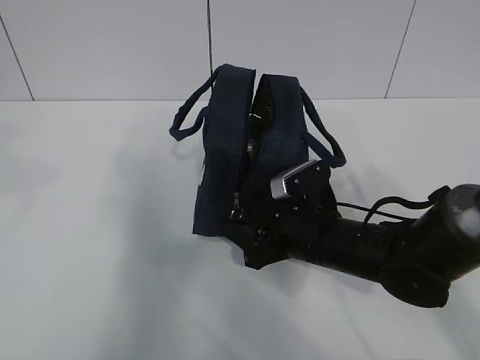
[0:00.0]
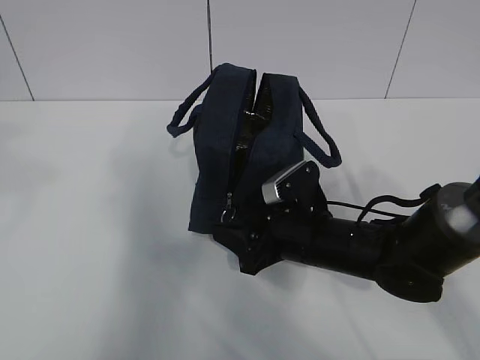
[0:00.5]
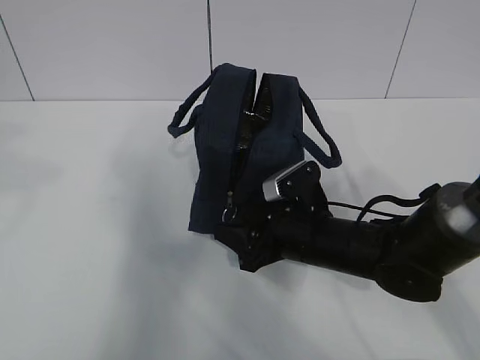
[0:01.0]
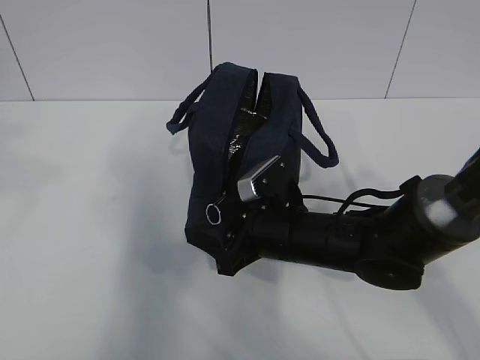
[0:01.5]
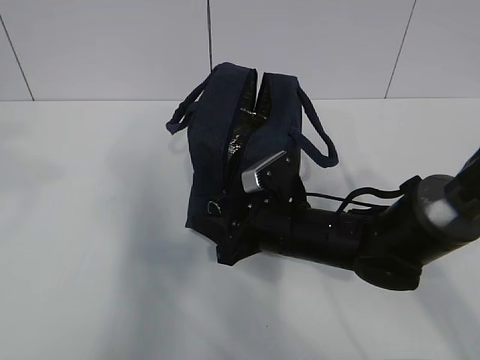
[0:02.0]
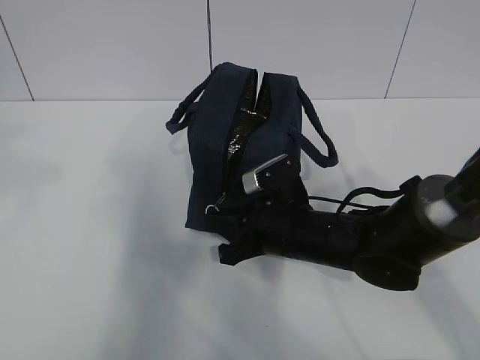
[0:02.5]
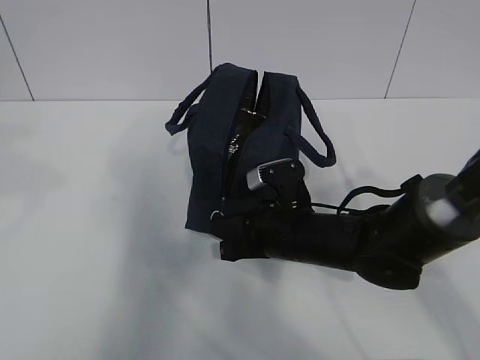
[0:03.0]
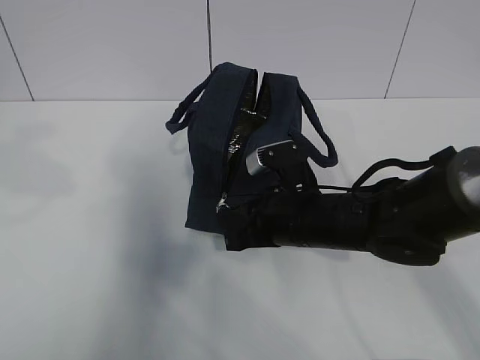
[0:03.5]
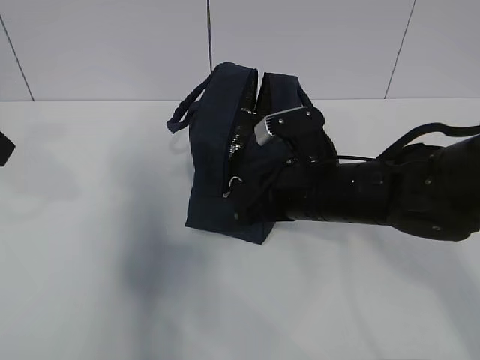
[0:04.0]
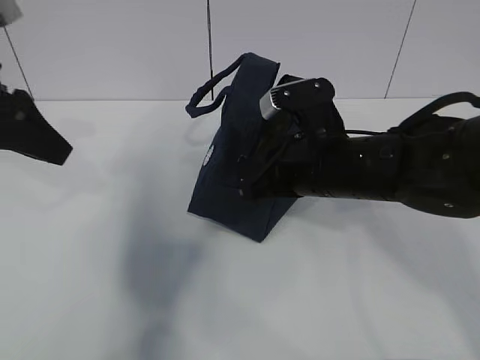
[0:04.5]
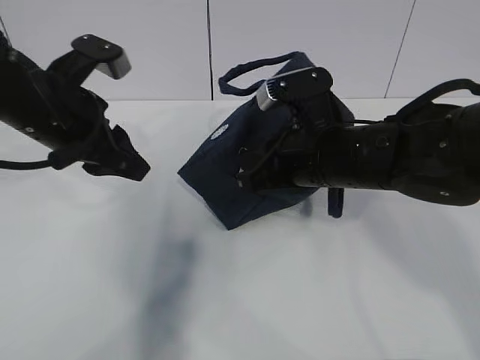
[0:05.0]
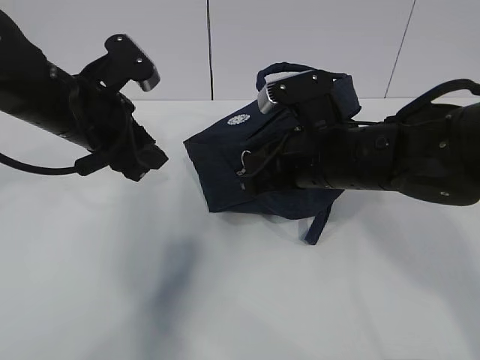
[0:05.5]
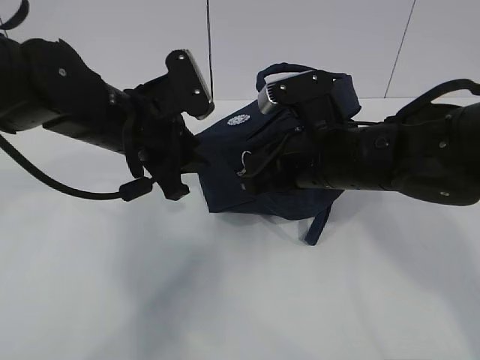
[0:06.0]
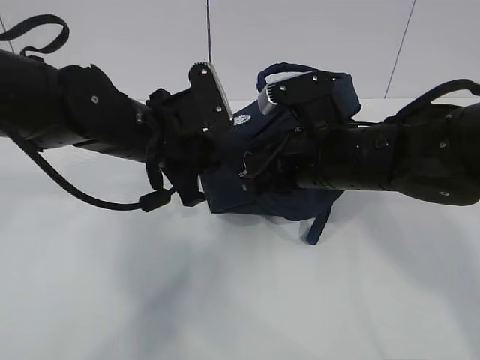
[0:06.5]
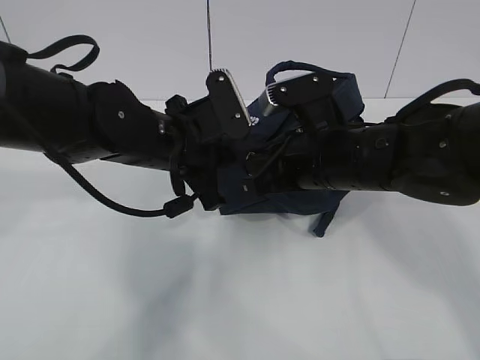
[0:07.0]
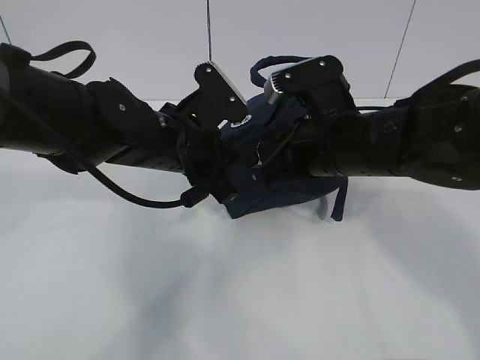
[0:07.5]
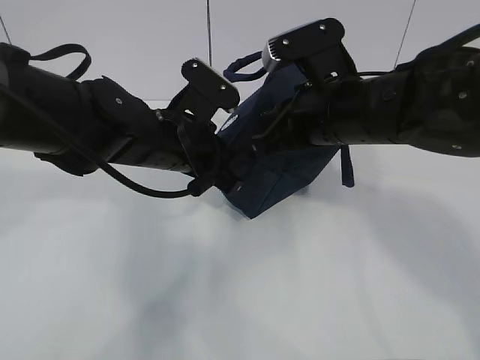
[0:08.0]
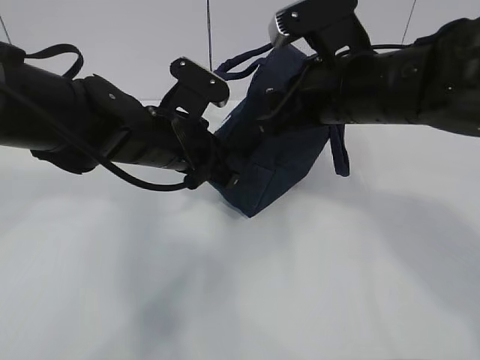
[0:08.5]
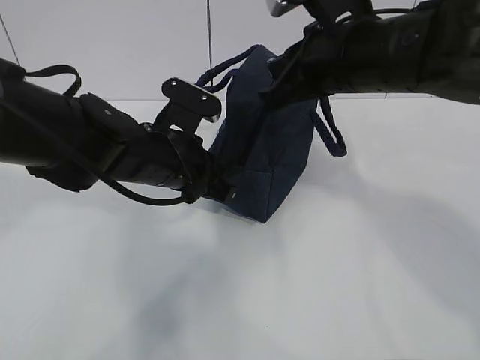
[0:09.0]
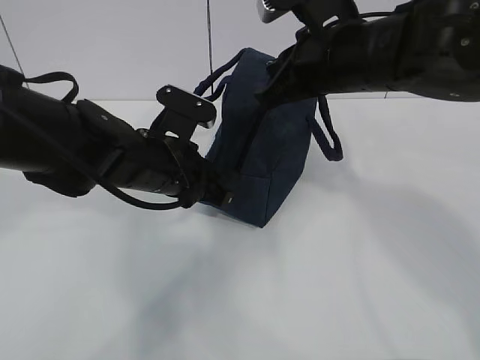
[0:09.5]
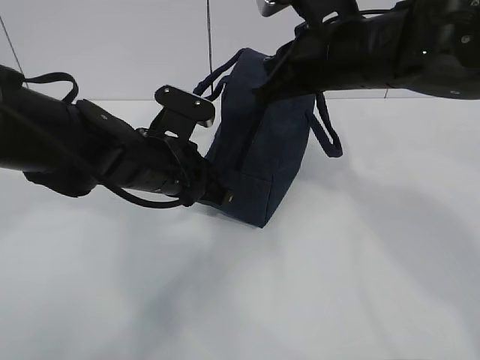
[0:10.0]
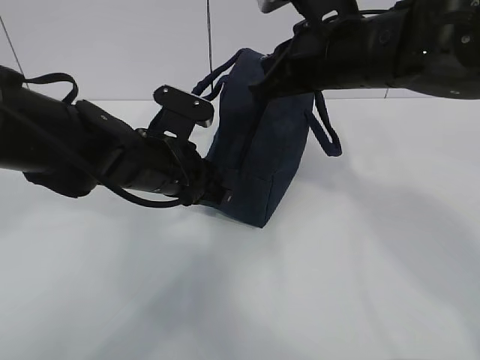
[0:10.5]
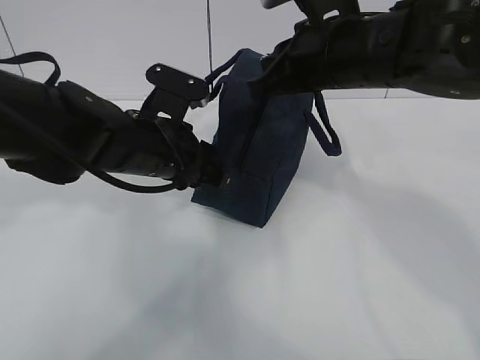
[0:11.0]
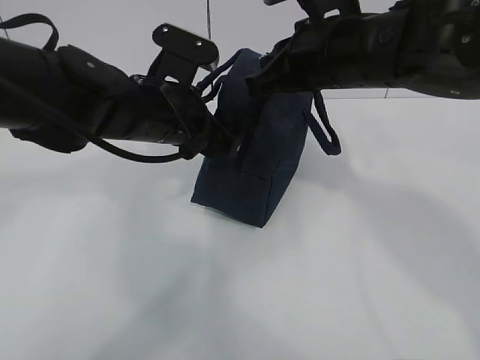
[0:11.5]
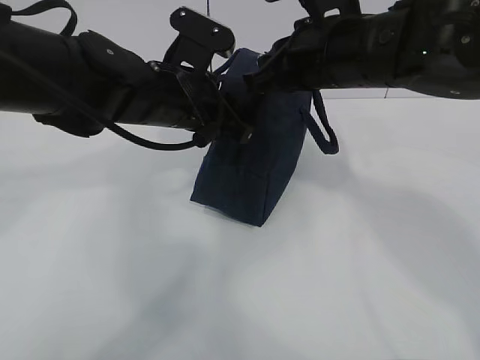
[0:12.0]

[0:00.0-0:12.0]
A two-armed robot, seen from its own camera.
Step, 0:02.5 to 0:07.0: Pull the zipper with your right hand.
Step, 0:07.5 to 0:10.5: Grab the lunch bag with your left hand.
0:00.0 to 0:02.0: The grippers stay close to where they were, moving slightly.
0:02.0 to 0:04.0: The left gripper travels forward and downward by about 10 cm, while the right gripper is displaced upward by approximately 5 cm, and closes up.
0:04.0 to 0:06.0: The left gripper shifts some 20 cm to the right, downward and forward.
0:06.0 to 0:08.0: The left gripper closes up.
0:08.0 to 0:10.0: The right gripper shifts by approximately 5 cm.
0:10.0 to 0:12.0: The left gripper travels upward by about 5 cm, and opens its fingers.

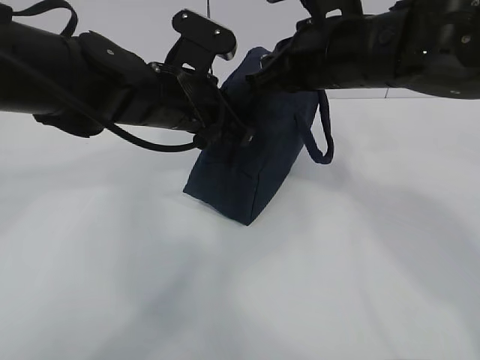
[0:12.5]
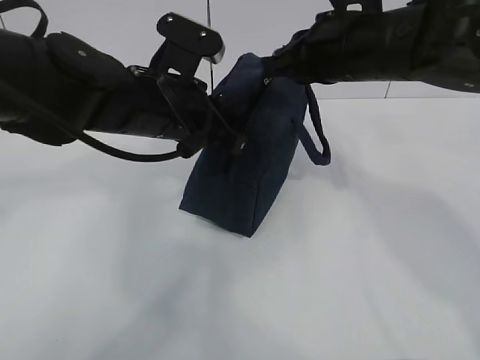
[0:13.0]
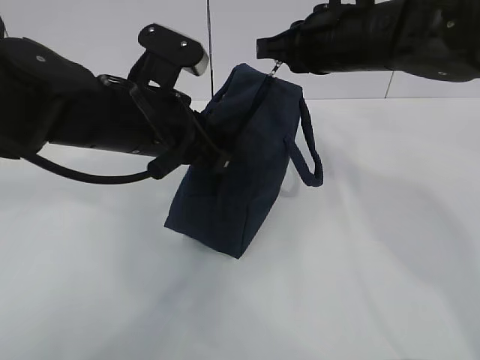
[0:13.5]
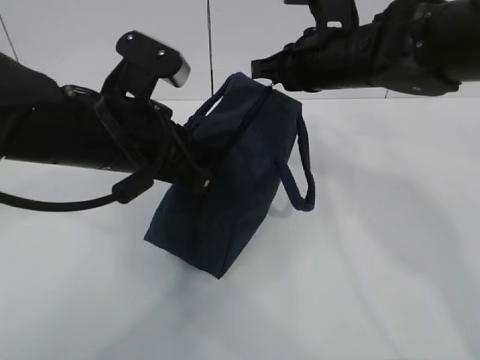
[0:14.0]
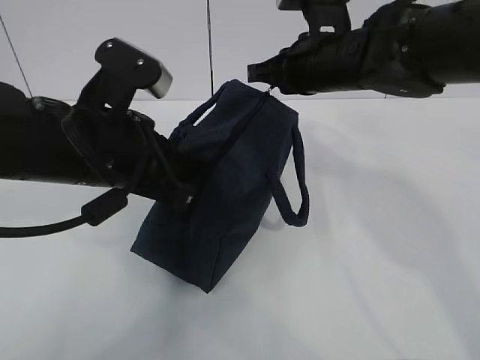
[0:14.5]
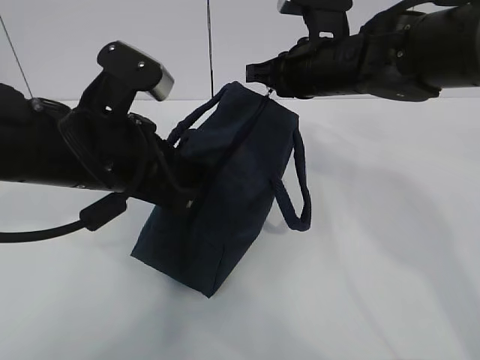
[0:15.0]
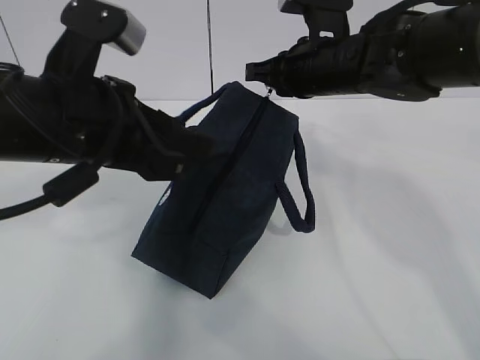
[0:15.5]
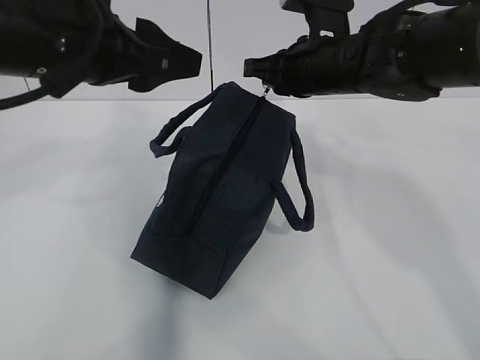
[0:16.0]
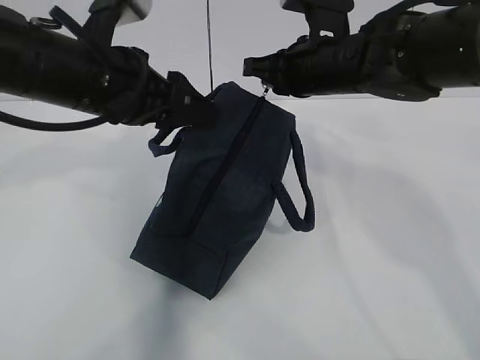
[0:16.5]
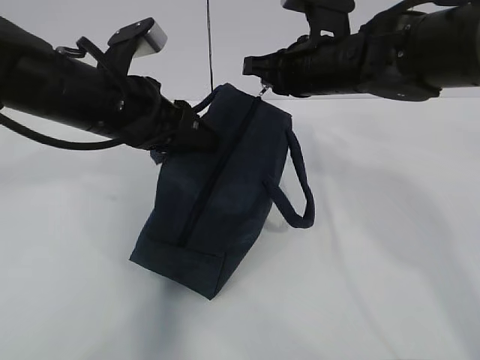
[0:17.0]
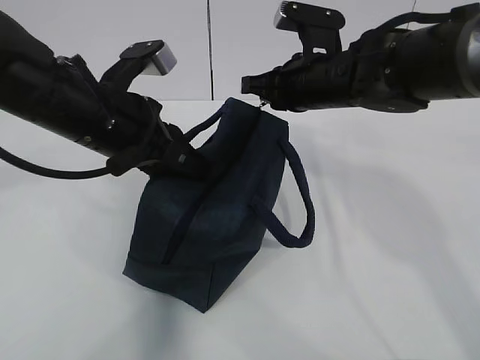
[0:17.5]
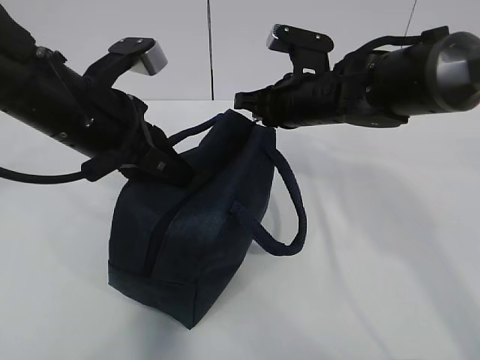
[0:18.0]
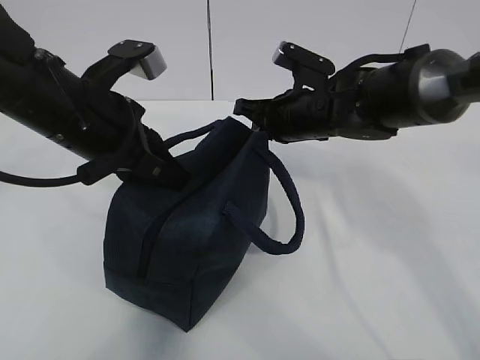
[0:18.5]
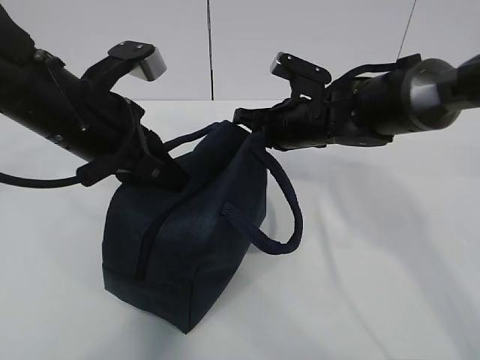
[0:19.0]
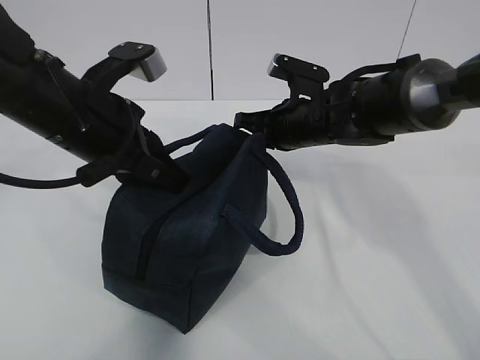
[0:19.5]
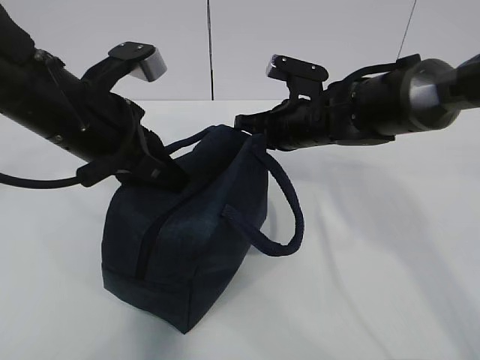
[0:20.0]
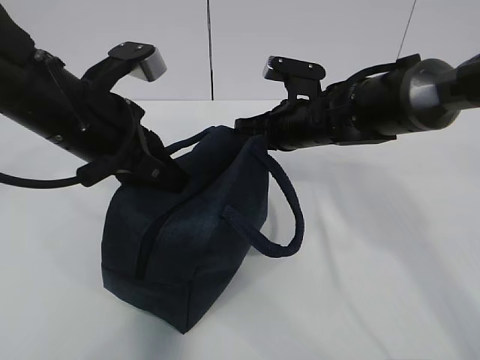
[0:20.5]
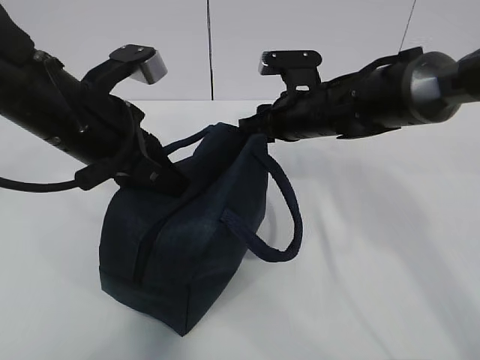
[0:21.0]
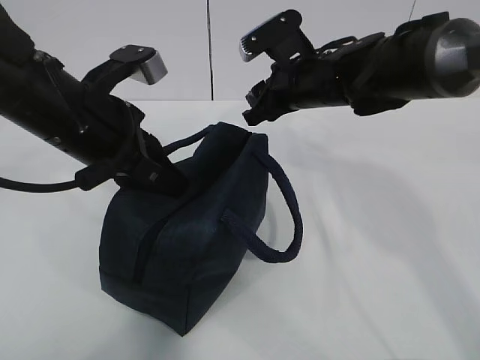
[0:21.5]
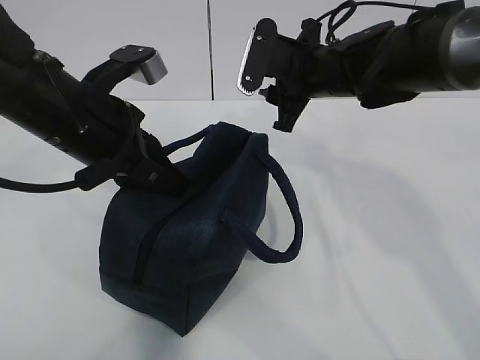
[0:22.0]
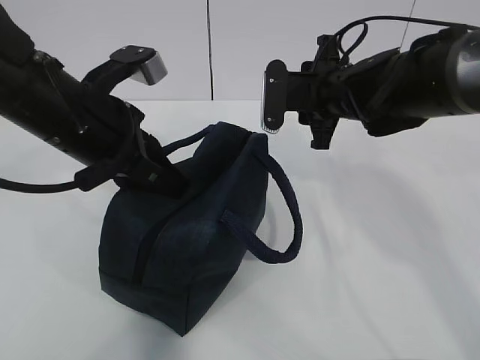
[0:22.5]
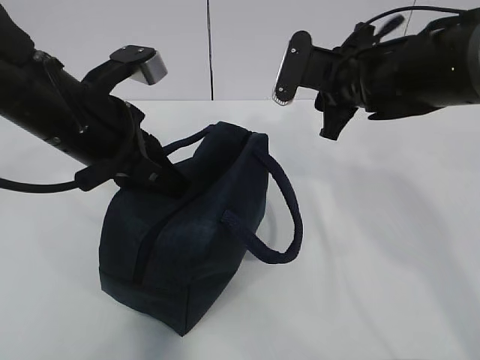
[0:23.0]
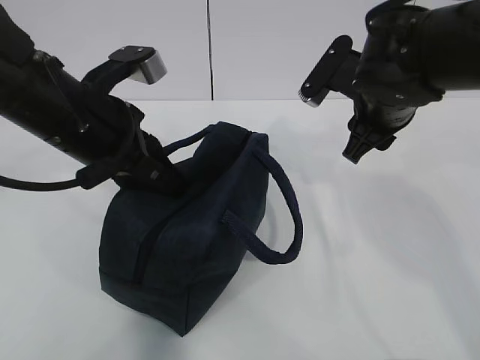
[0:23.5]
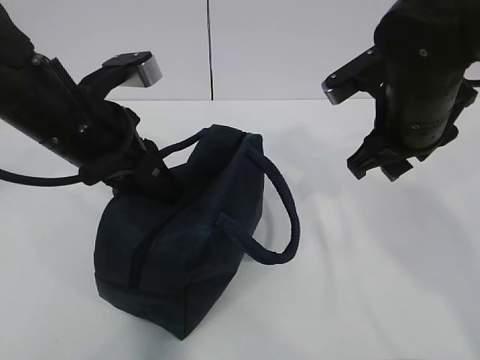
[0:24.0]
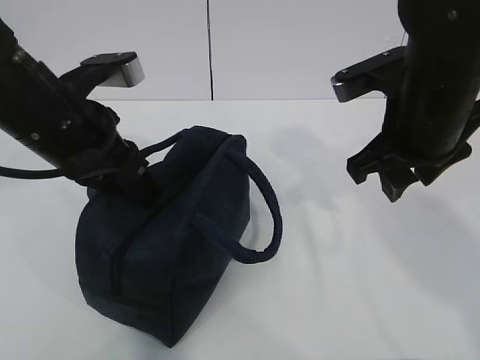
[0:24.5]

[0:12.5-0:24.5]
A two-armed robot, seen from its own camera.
0:12.5 to 0:14.5: The left gripper travels backward and to the left by some 10 cm. The right gripper goes approximately 5 cm forward.
0:14.5 to 0:16.5: The left gripper moves forward, about 5 cm, and opens its fingers.
0:16.5 to 0:18.5: The right gripper travels downward by some 5 cm, while the left gripper closes its fingers.
0:18.5 to 0:20.5: The grippers make only small movements.
0:20.5 to 0:22.5: The right gripper shifts some 5 cm upward, and opens up.
0:22.5 to 0:24.5: The right gripper shifts roughly 15 cm backward and upward.

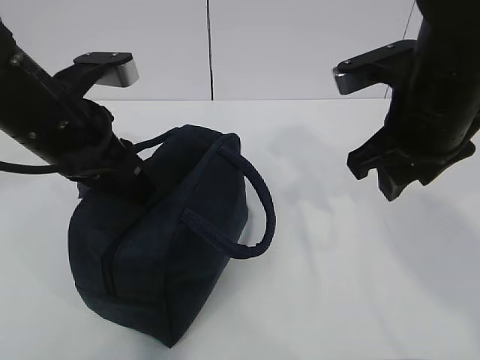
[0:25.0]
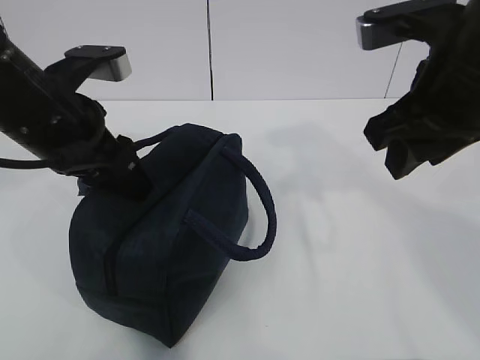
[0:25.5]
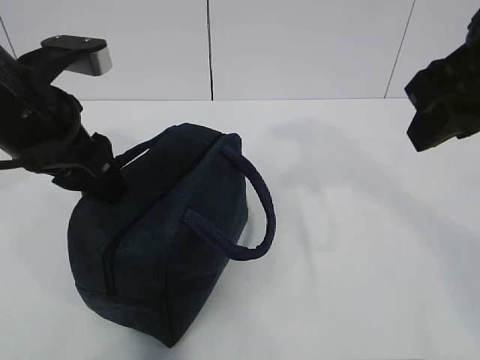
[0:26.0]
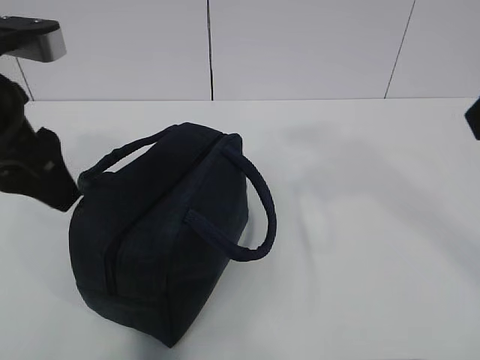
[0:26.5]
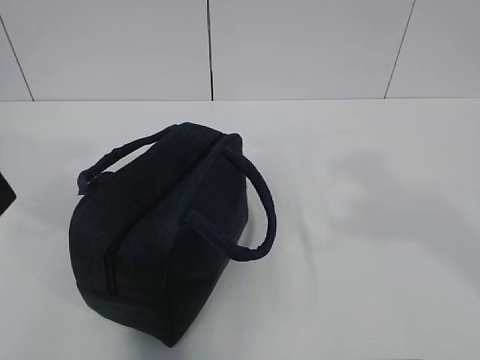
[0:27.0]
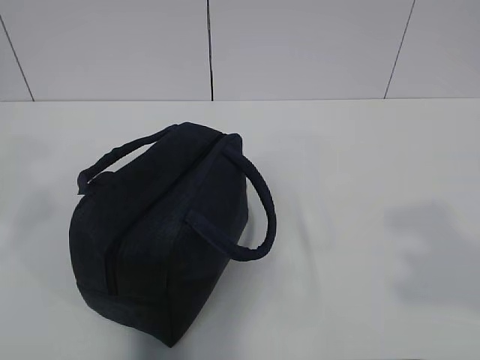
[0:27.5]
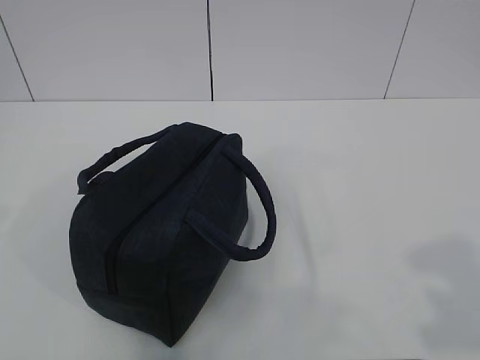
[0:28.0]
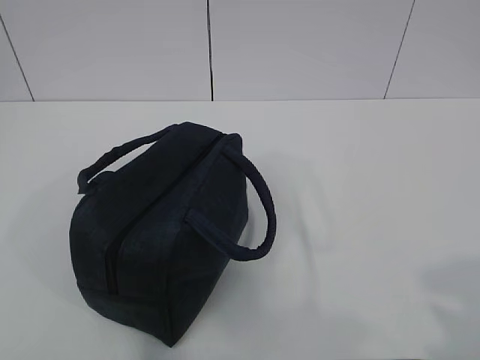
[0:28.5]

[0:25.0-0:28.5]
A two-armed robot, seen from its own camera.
0:25.0 to 0:27.0: The right gripper moves backward, upward and to the right, about 25 cm; the left gripper goes some 15 cm upward, backward and to the left, and opens its fingers.
0:27.0 to 0:28.5: The right gripper travels downward, backward and to the right by some 15 cm. The left gripper travels backward and to the left by about 20 cm.
